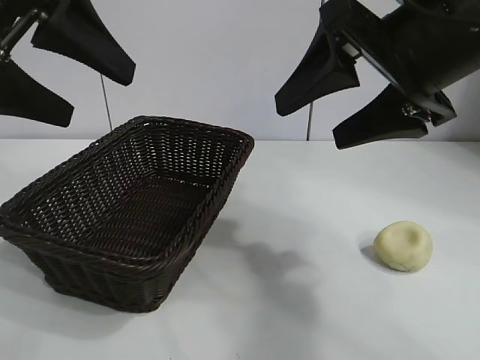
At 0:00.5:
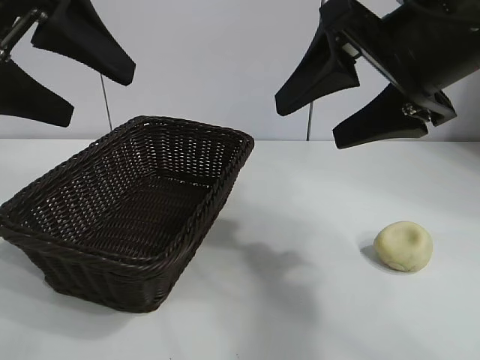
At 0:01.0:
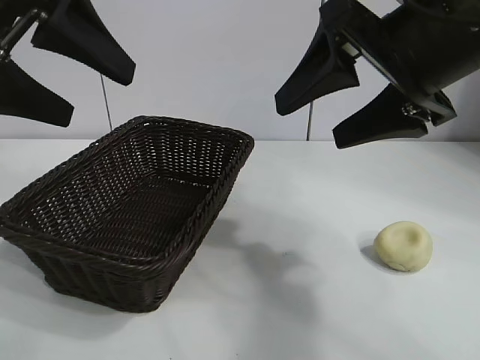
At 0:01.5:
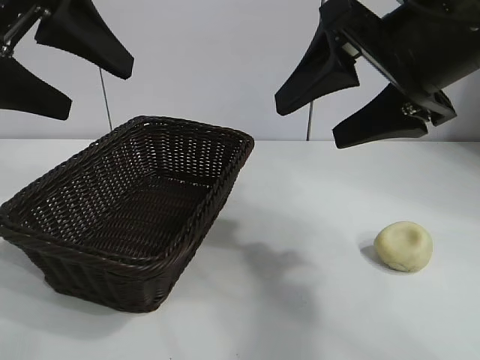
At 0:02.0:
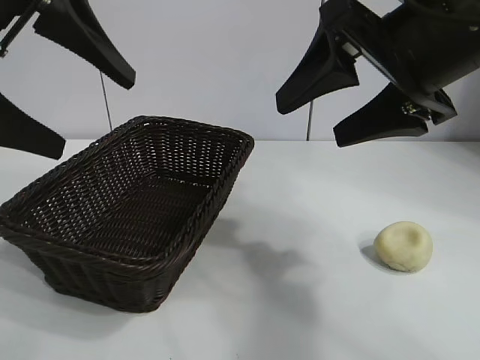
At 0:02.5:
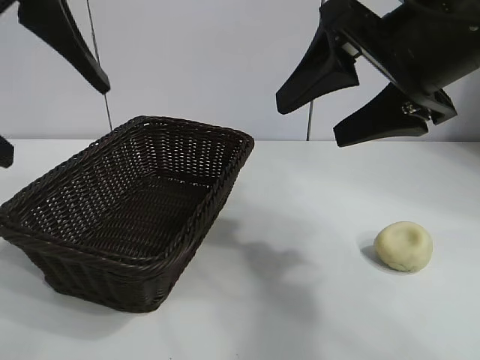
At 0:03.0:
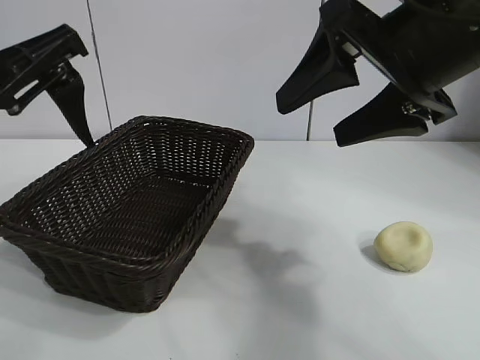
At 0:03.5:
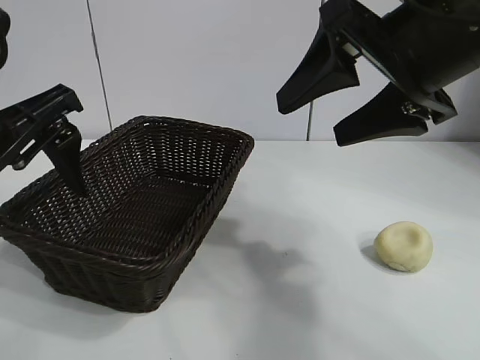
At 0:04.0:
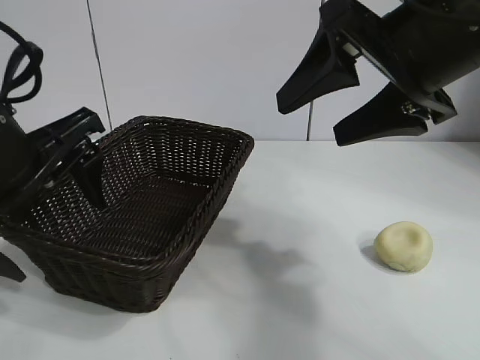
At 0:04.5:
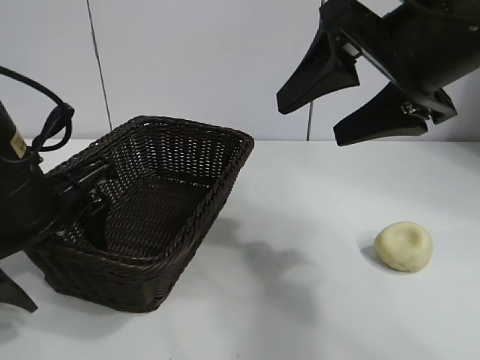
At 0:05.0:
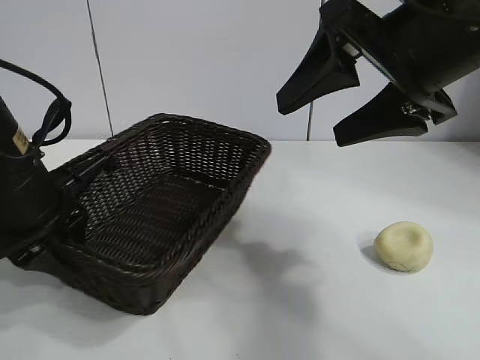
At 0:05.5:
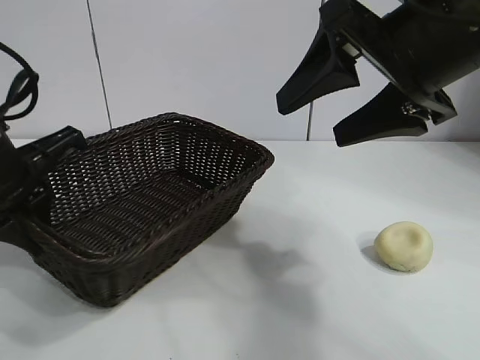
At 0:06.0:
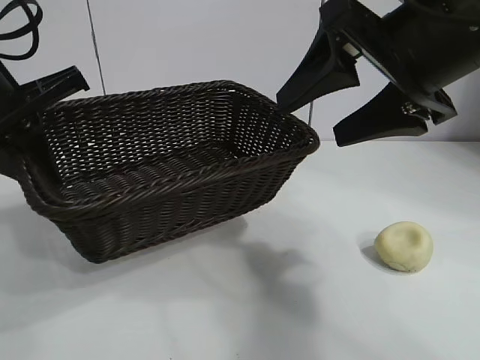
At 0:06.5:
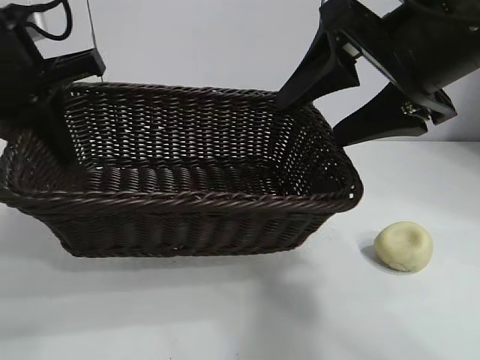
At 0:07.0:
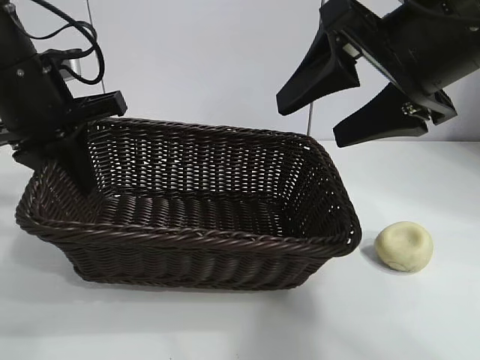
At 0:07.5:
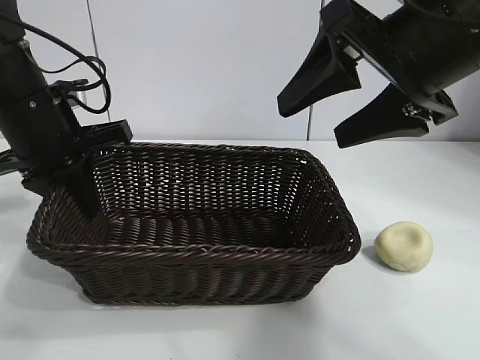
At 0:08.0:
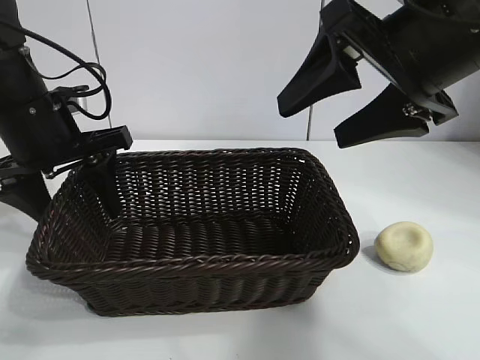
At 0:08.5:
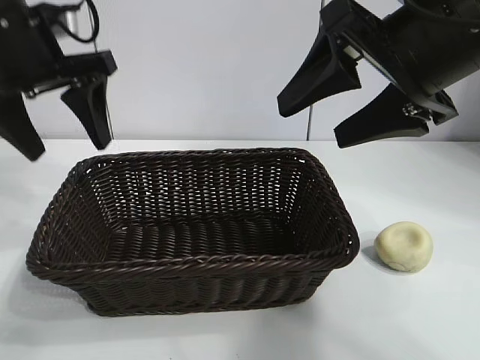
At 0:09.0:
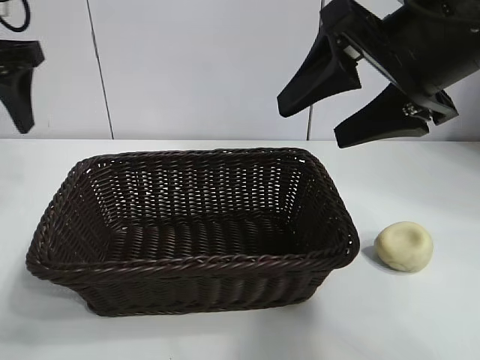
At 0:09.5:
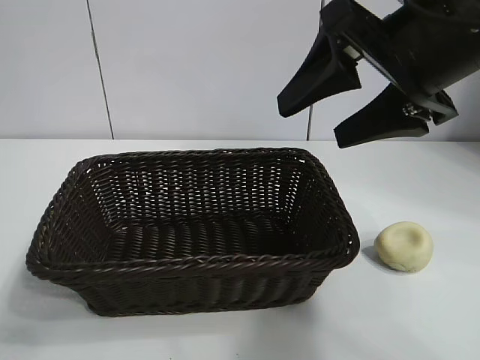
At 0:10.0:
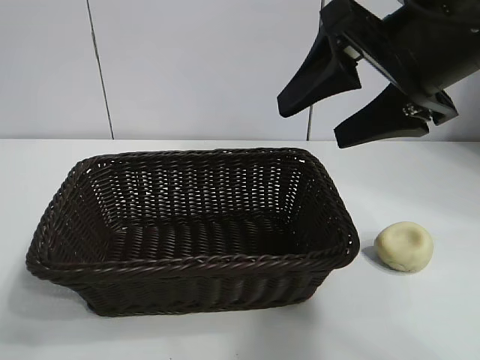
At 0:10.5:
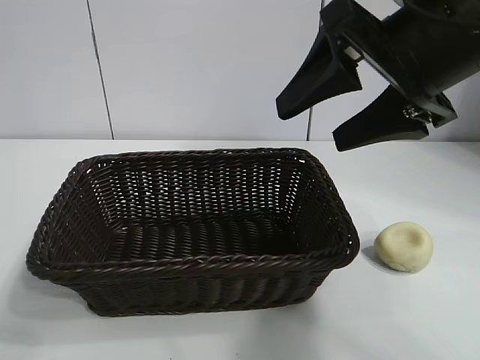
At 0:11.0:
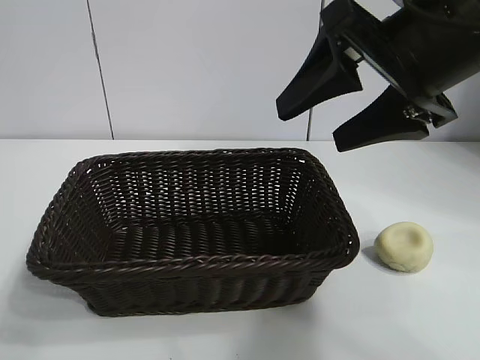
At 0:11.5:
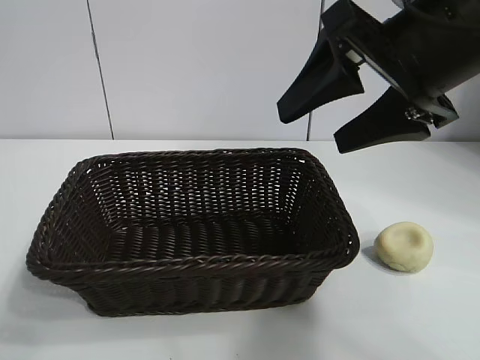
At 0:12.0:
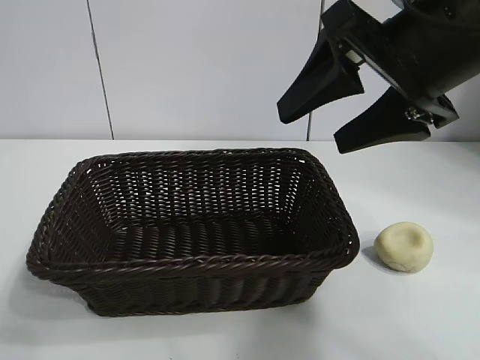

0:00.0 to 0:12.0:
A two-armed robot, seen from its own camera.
Task of the whole recording: pick up the egg yolk pastry and put it into the basket.
Step, 0:01.5 to 0:05.0: Grasp the basket with left gripper.
Step, 0:05.5 to 0:08.0: Place the basket in the center of view with left gripper.

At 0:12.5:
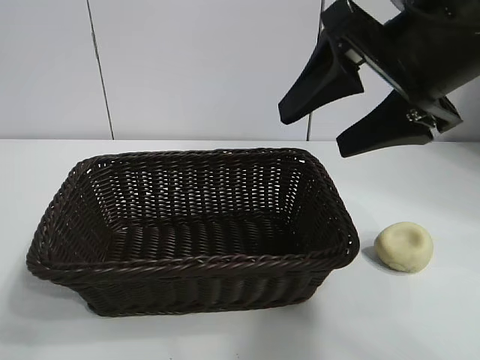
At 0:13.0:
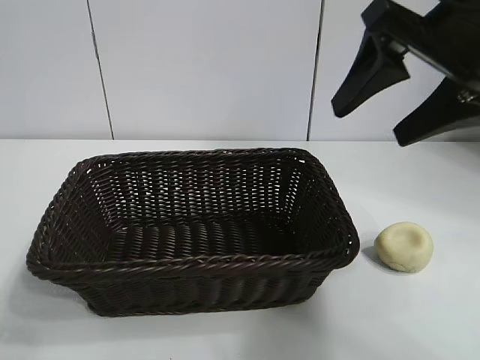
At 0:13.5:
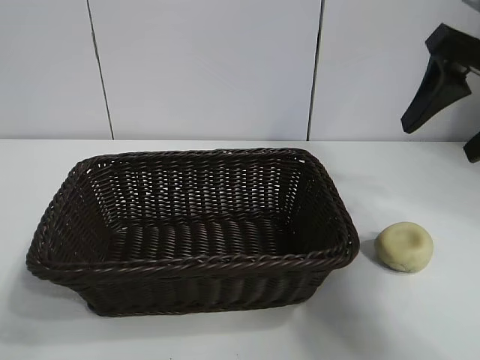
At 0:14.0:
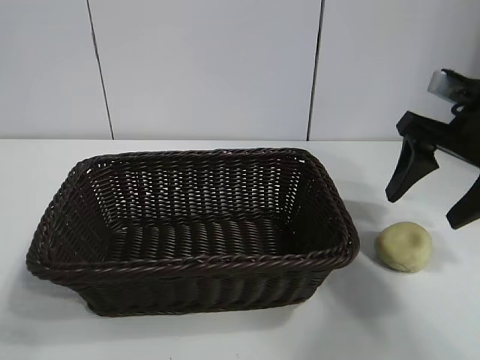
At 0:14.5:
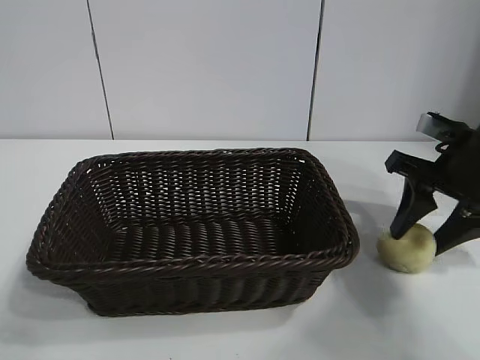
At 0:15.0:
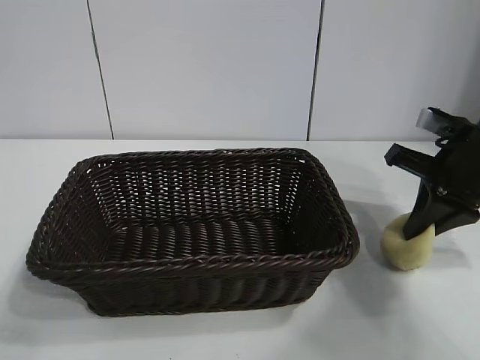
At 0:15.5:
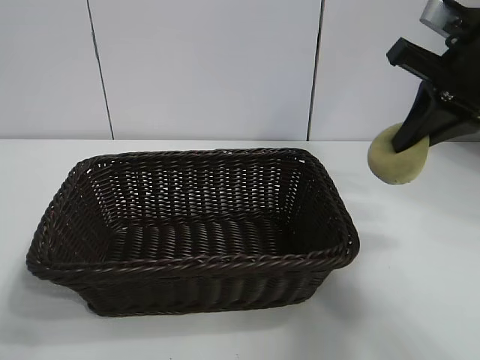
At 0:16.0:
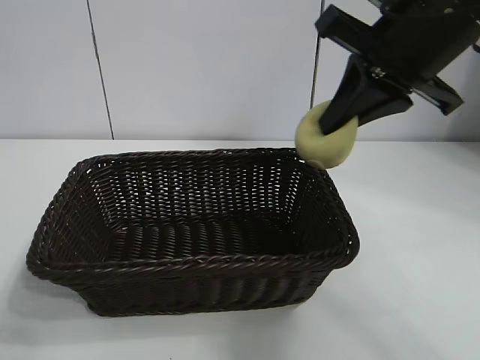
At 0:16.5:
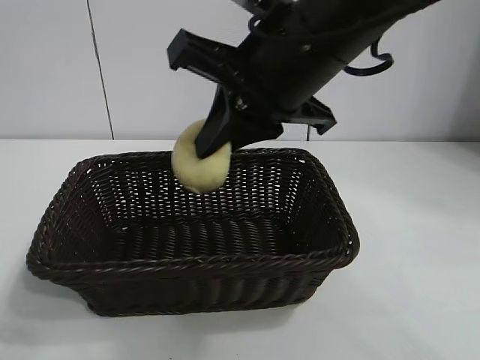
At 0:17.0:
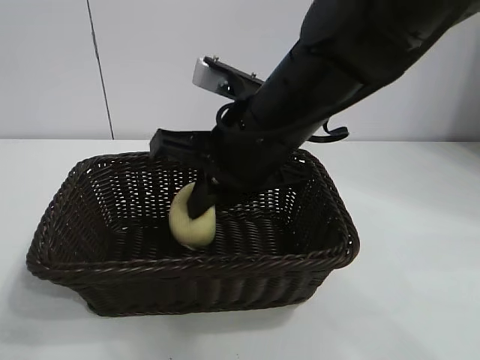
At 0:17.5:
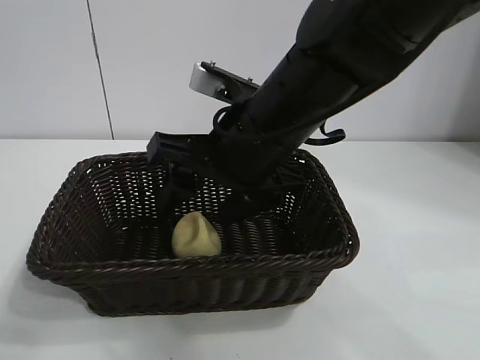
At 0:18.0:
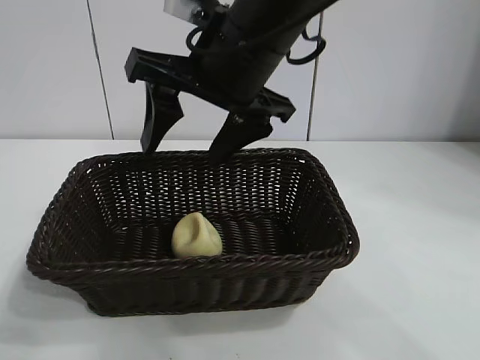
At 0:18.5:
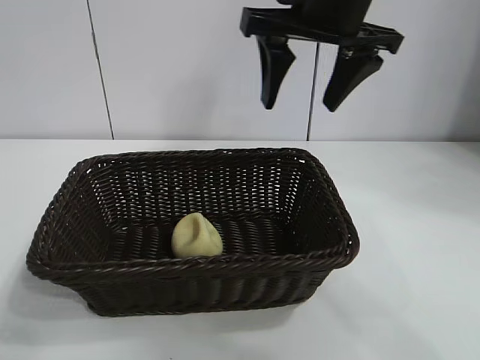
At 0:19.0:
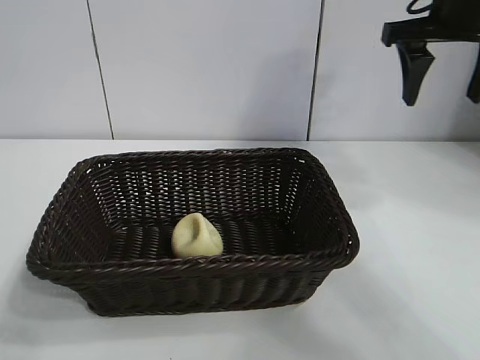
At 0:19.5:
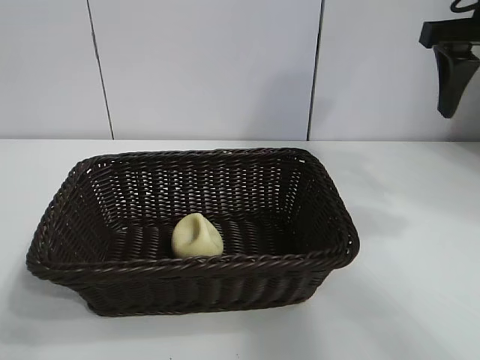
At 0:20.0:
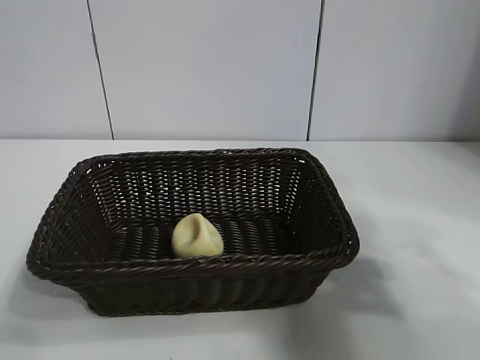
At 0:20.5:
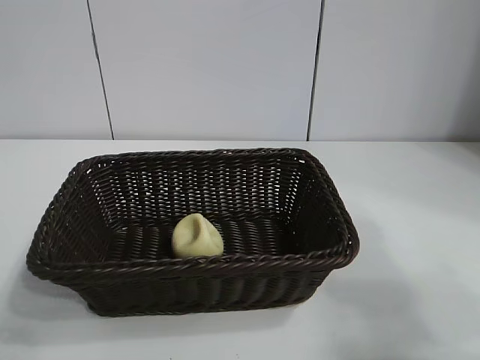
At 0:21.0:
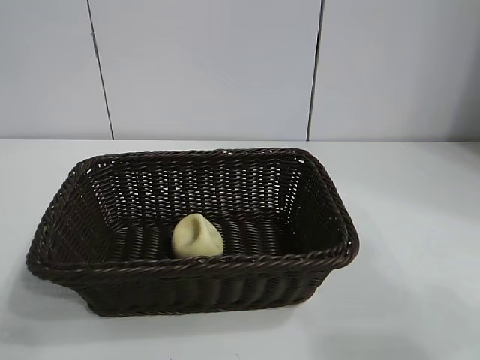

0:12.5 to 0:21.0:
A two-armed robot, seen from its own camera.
Task of the whole recording: pick up the egg yolk pastry and put it into the basket.
Step, 0:12.5 to 0:14.5: Grasp egg yolk pastry with right gripper.
Step, 0:15.0 to 0:17.5: Place the egg yolk pastry in the basket with right gripper.
